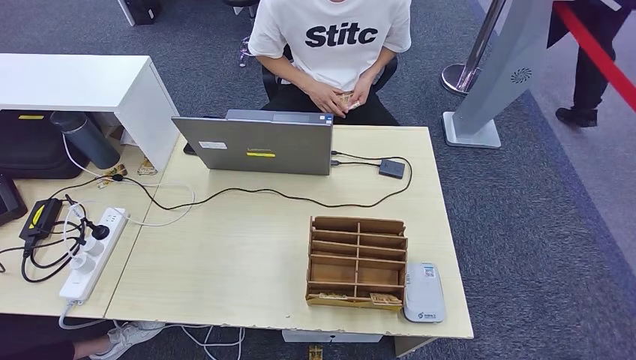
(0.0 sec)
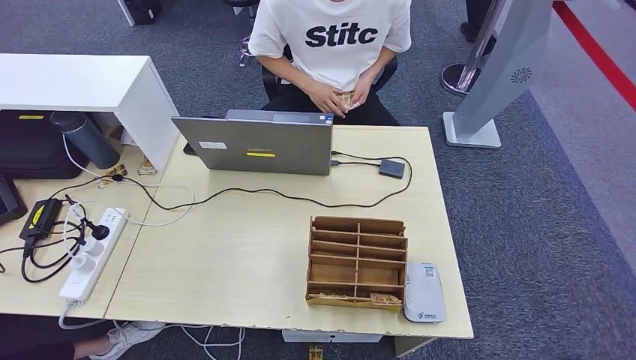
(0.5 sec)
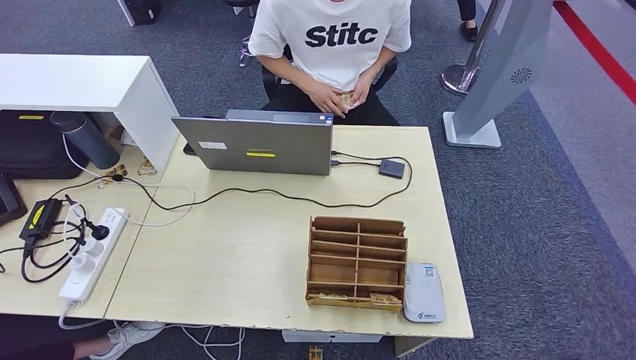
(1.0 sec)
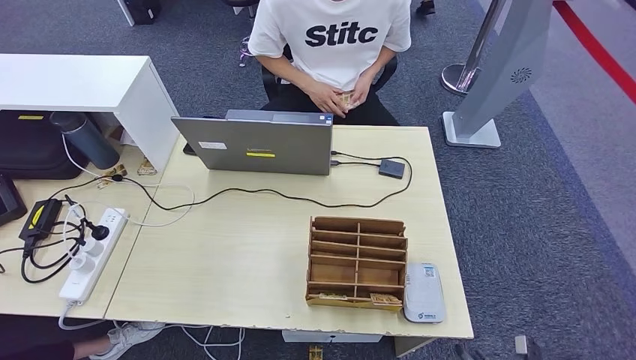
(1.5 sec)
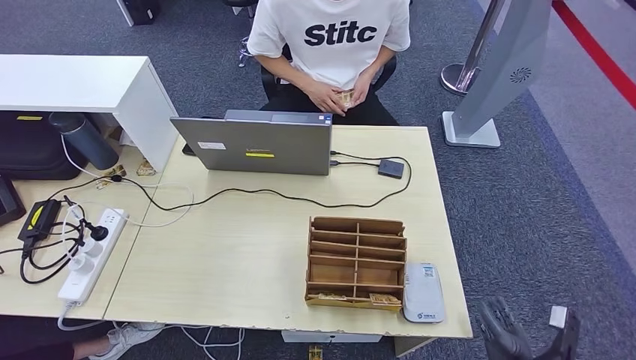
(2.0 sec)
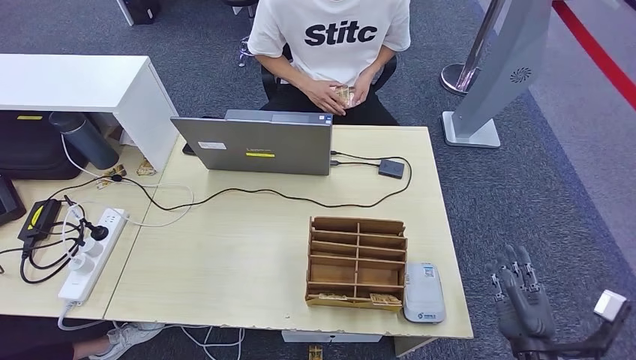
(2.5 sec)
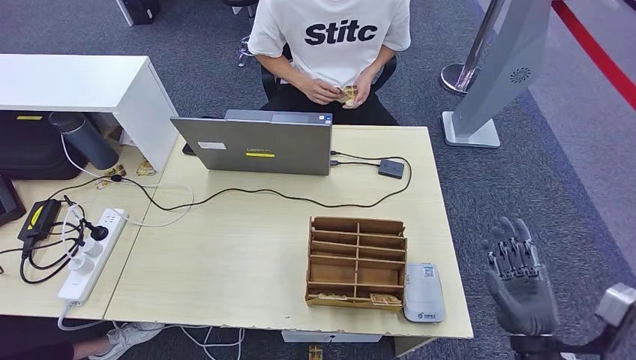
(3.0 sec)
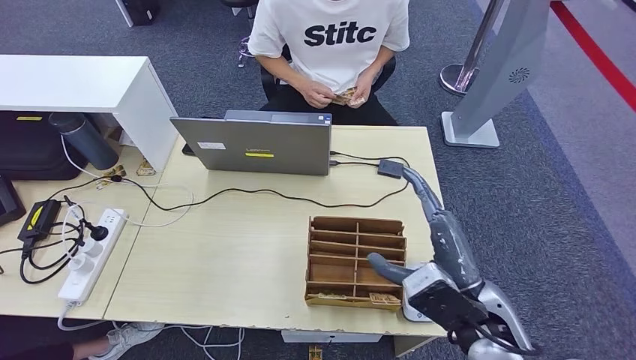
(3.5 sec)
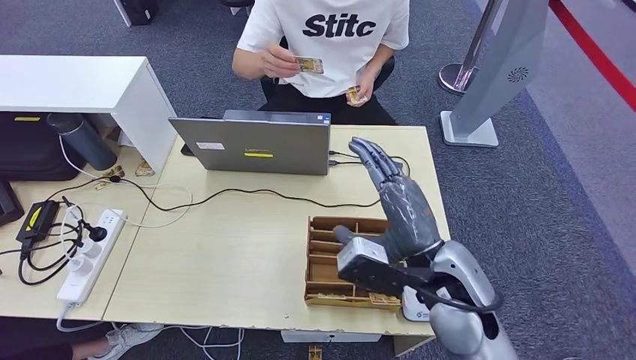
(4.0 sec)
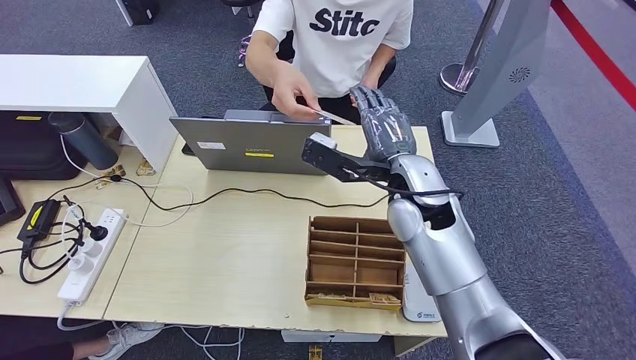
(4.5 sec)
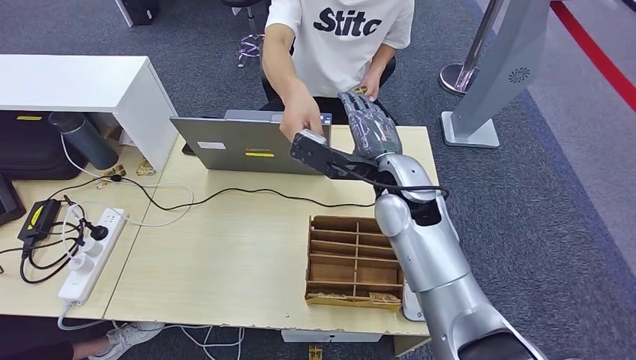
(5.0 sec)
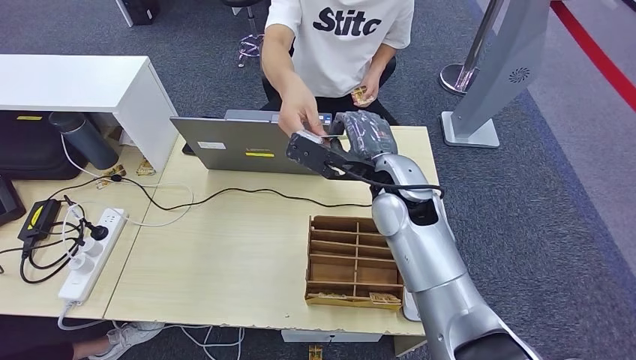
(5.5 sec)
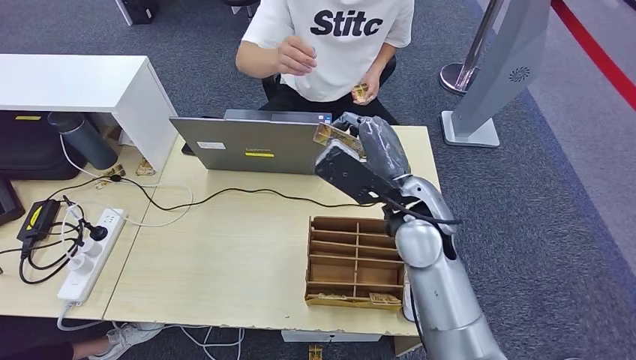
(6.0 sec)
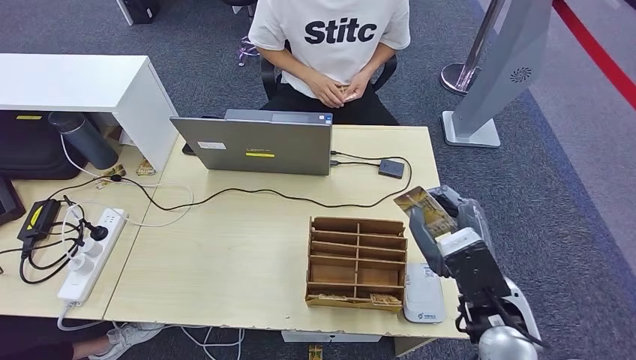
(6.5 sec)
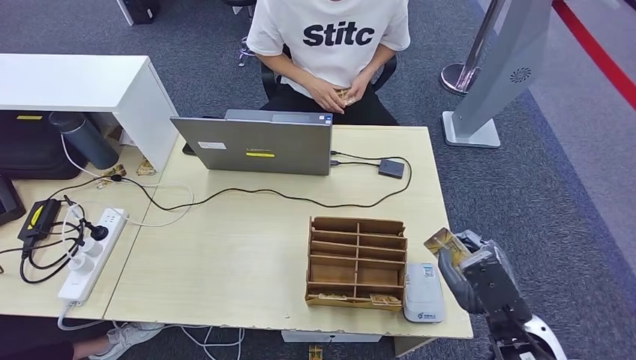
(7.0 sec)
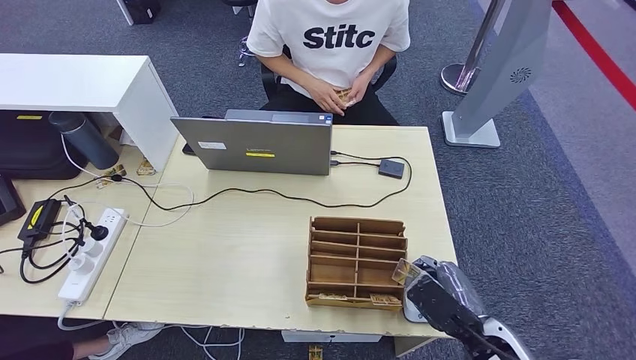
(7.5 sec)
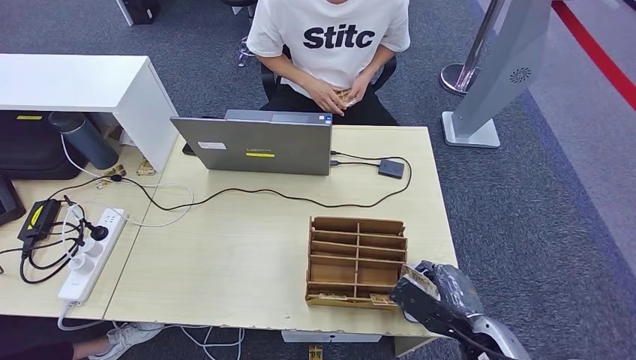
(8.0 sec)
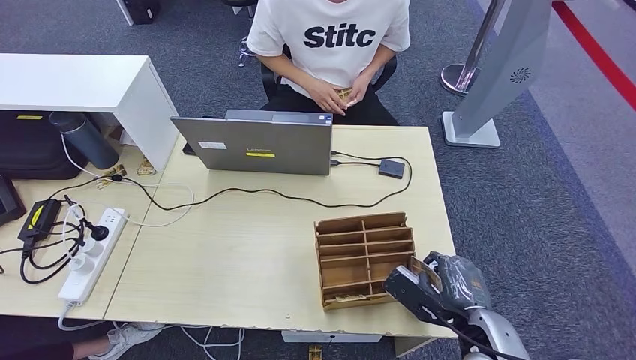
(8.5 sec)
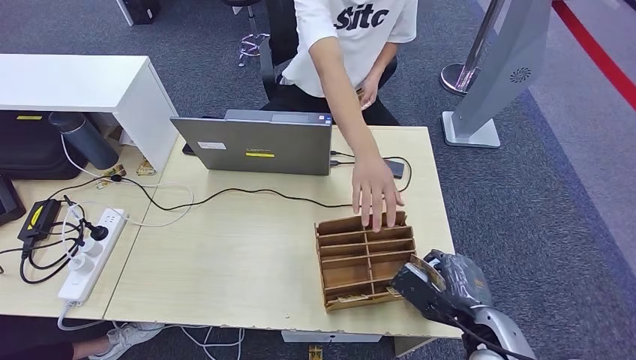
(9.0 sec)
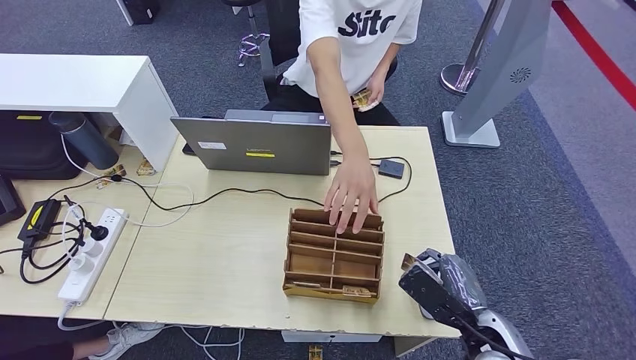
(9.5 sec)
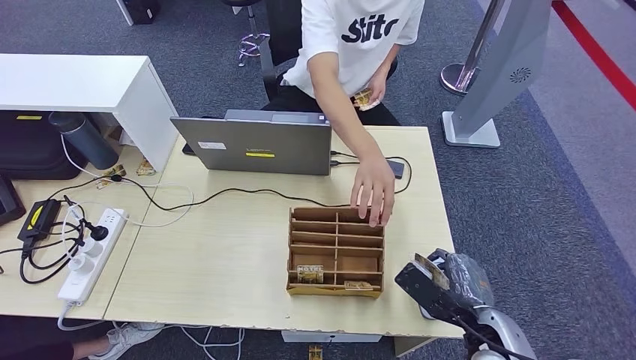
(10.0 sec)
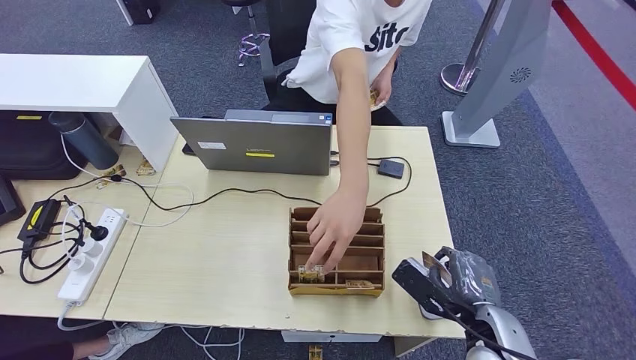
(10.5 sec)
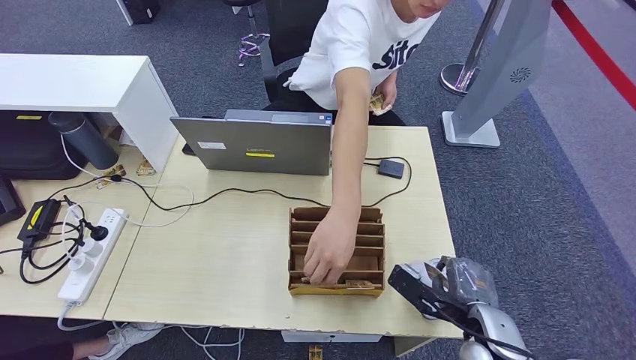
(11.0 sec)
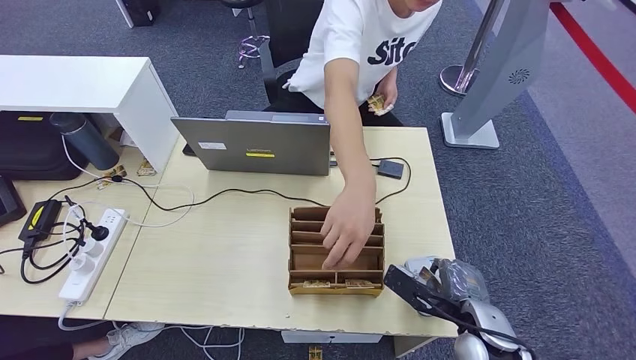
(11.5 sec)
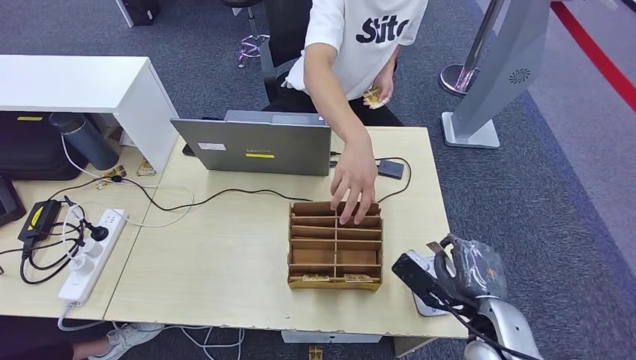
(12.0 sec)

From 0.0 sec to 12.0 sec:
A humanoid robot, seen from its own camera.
Step, from 0.0 sec to 6.0 sec: Take the ID card from the person's hand.
Step, from 6.5 sec to 7.5 sec: Place the ID card on the card reader.
From 0.0 sec to 2.0 sec: The right hand shifts approximately 20 cm forward and upward.
From 2.0 sec to 4.0 sec: The right hand goes some 30 cm upward, to the left and forward.
From 4.0 sec to 6.0 sec: The right hand goes approximately 10 cm forward.
From 6.0 sec to 8.0 sec: The right hand travels downward, backward and to the right by some 25 cm.
From 8.0 sec to 10.0 sec: The hands stay close to where they were, moving slightly.

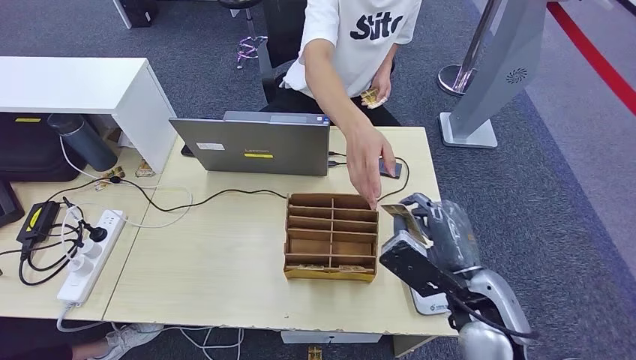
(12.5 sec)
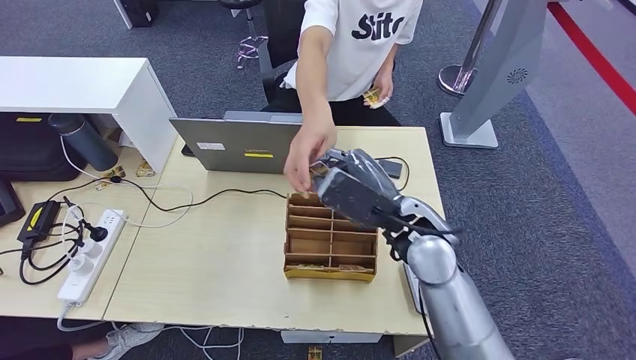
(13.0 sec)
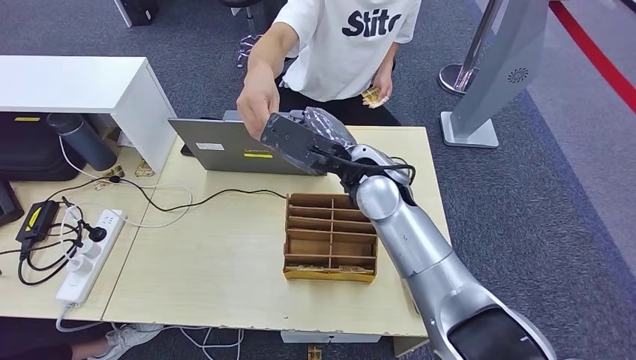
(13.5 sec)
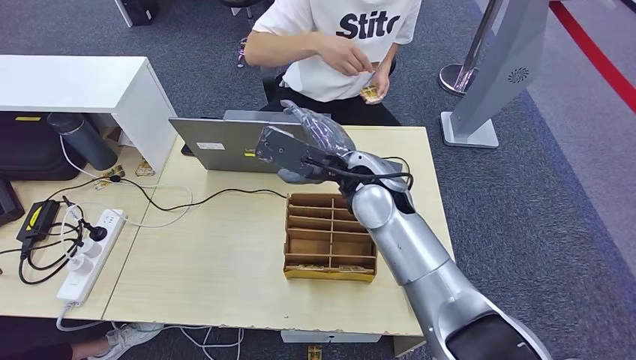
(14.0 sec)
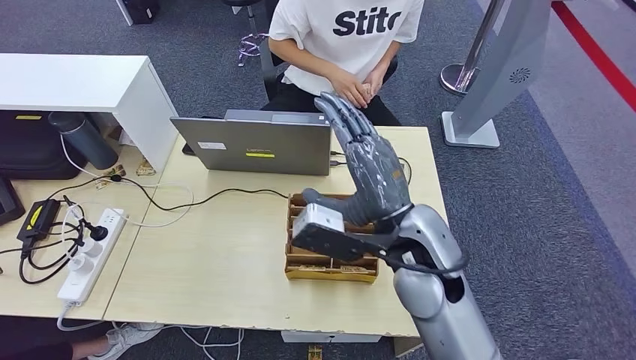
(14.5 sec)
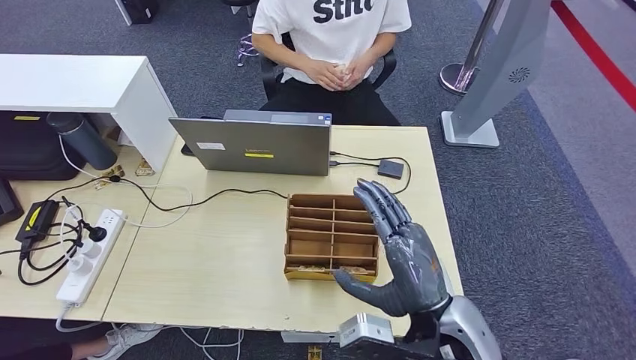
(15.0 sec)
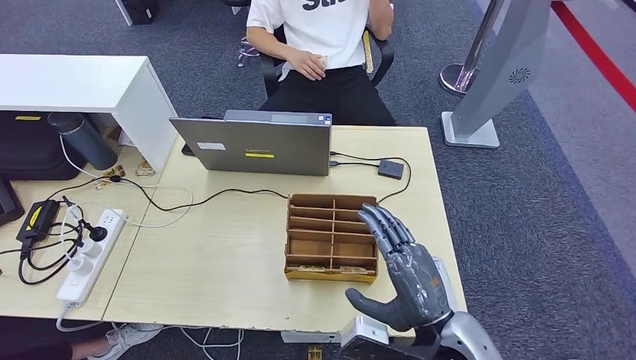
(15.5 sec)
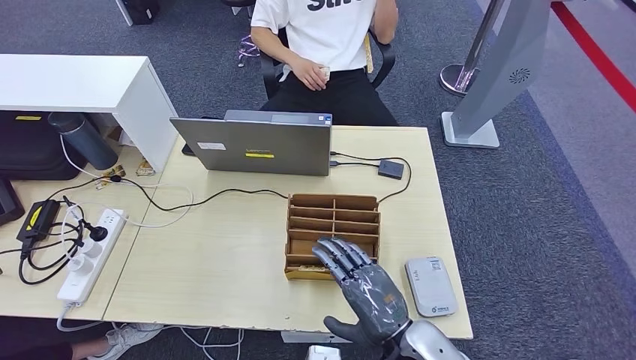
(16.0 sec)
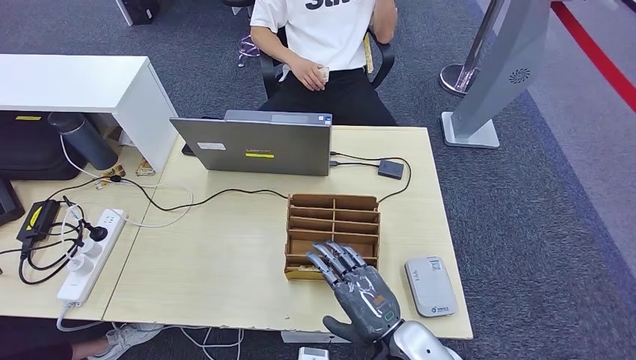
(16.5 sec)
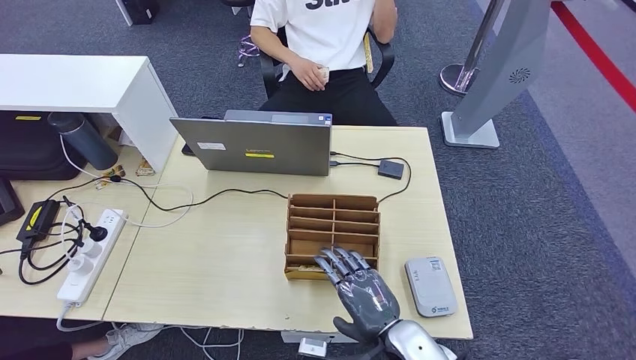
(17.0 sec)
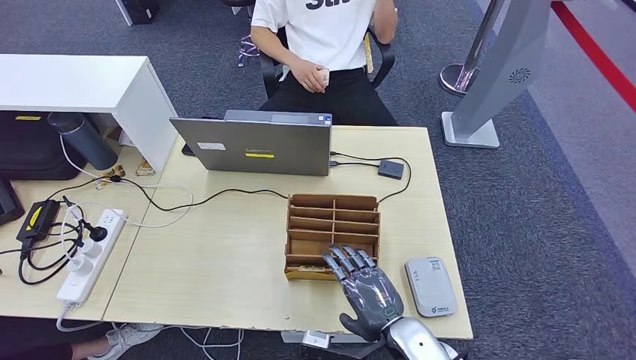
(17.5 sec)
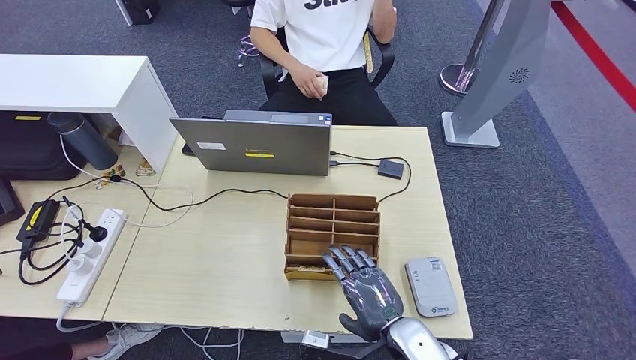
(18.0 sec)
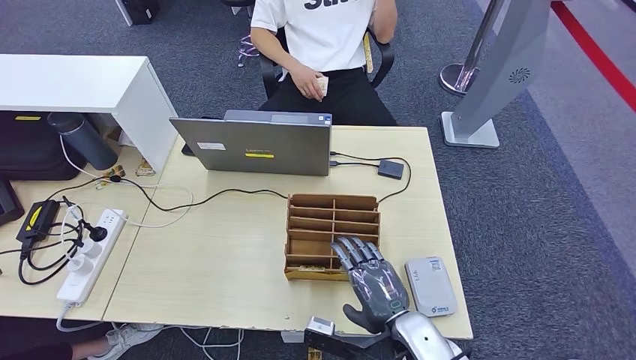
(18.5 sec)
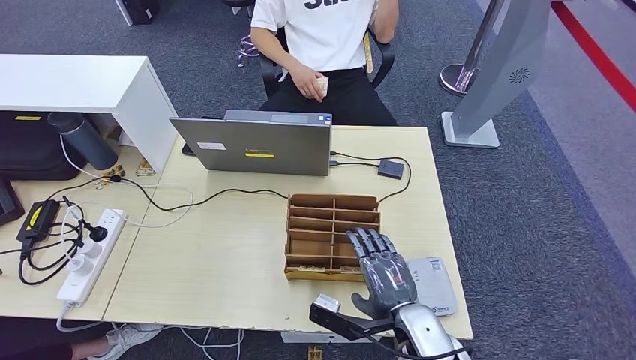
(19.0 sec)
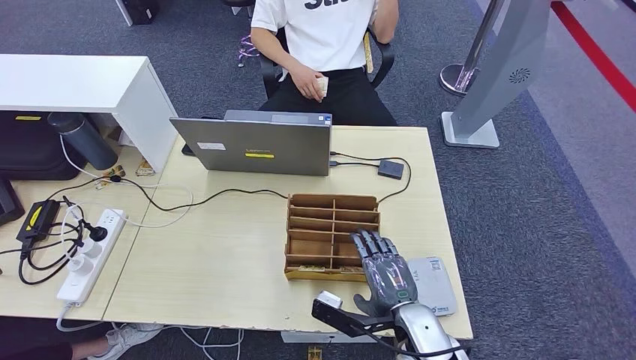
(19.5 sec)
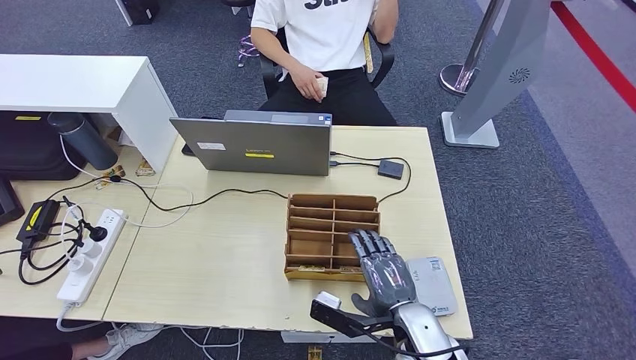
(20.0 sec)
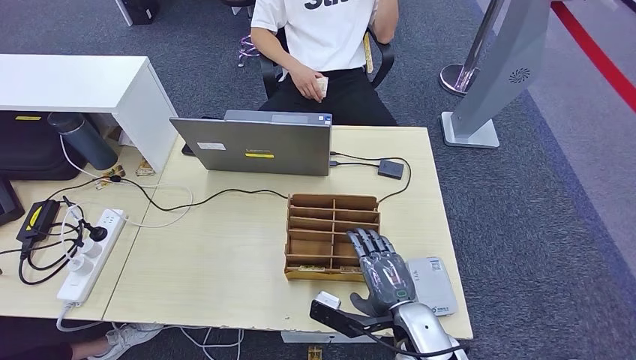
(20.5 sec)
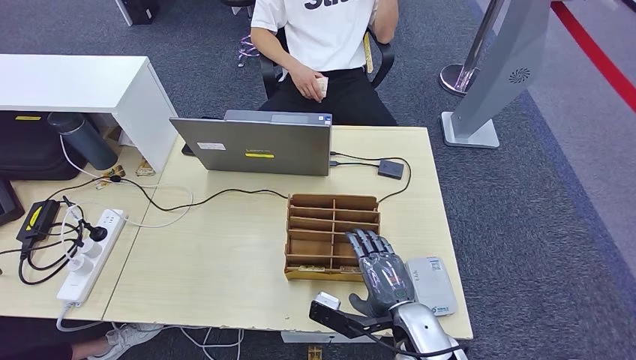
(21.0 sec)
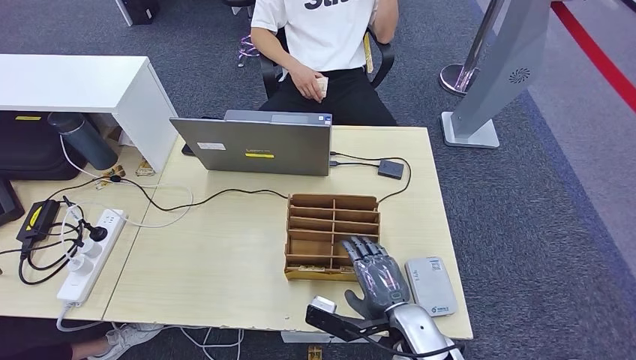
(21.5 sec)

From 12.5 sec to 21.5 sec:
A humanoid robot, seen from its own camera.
Step, from 12.5 sec to 14.5 sec: Hand the ID card to the person.
From 12.5 sec to 14.5 sec: The right hand goes some 10 cm to the left and upward, and reaches roughly 15 cm forward, then returns.
From 14.5 sec to 17.0 sec: The right hand goes about 20 cm downward and backward.
From 17.0 sec to 19.5 sec: The hands move only a little.
From 19.5 sec to 21.5 sec: The two hands keep their place.
